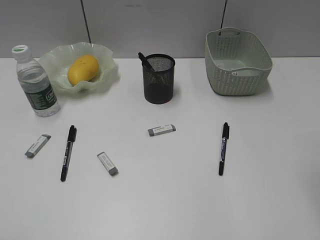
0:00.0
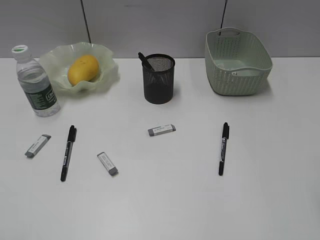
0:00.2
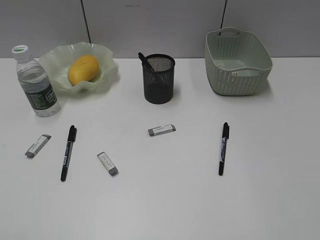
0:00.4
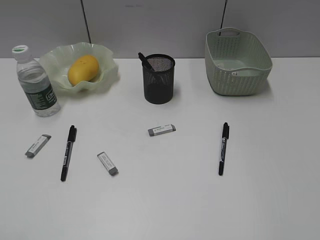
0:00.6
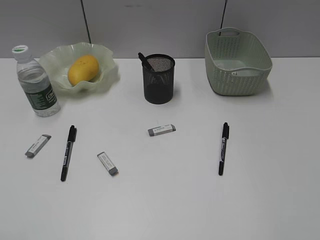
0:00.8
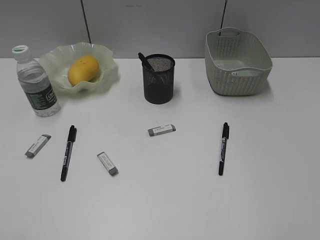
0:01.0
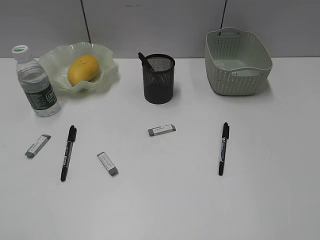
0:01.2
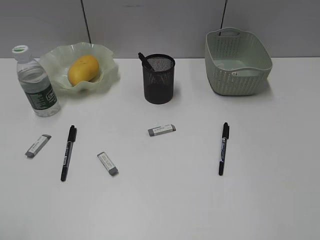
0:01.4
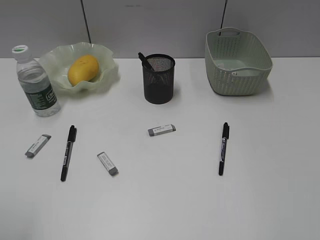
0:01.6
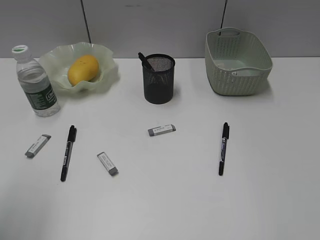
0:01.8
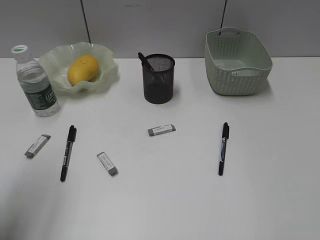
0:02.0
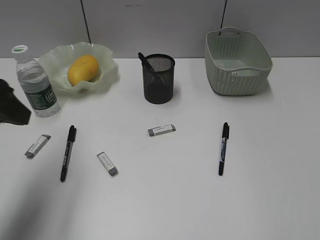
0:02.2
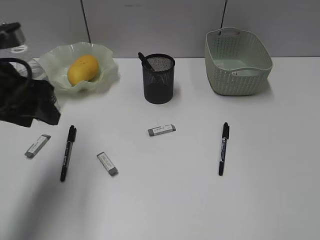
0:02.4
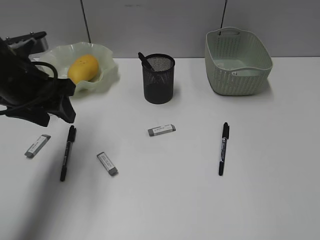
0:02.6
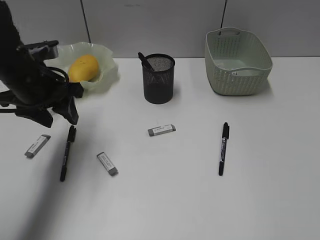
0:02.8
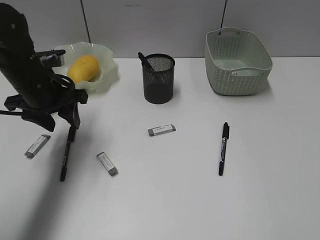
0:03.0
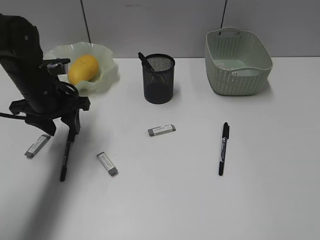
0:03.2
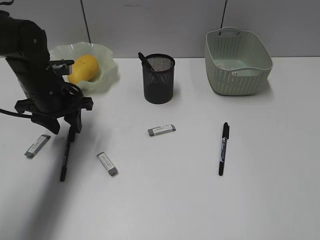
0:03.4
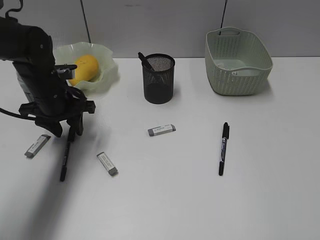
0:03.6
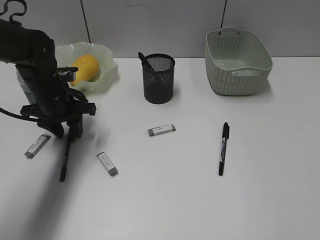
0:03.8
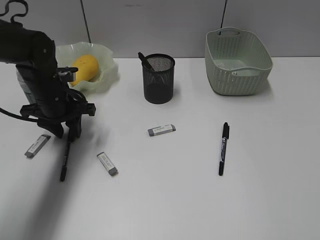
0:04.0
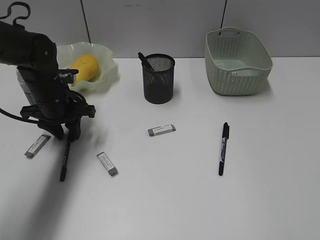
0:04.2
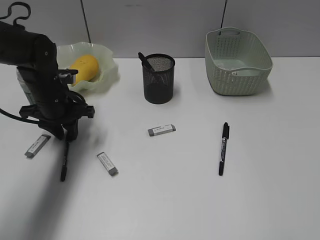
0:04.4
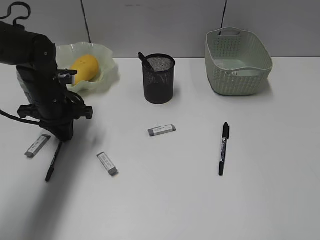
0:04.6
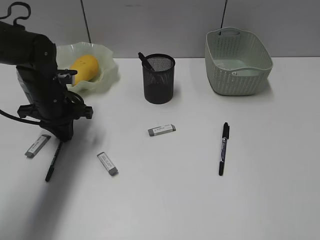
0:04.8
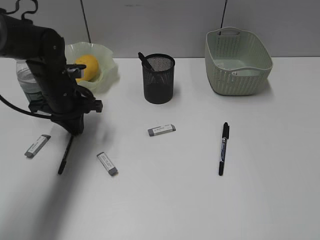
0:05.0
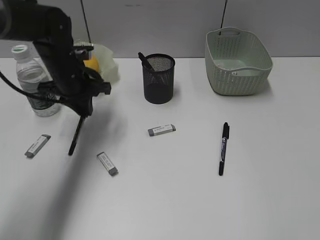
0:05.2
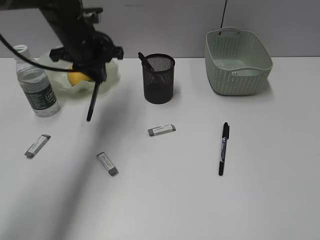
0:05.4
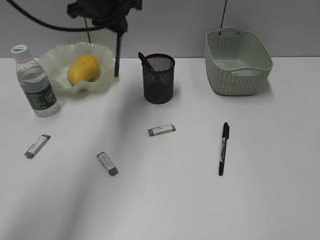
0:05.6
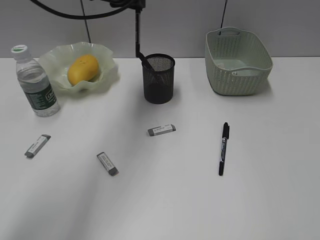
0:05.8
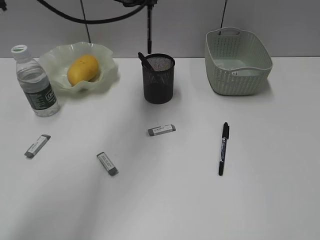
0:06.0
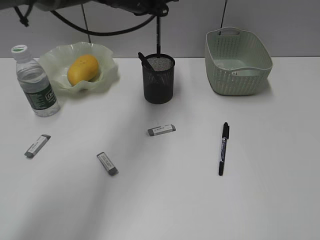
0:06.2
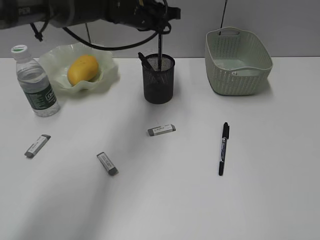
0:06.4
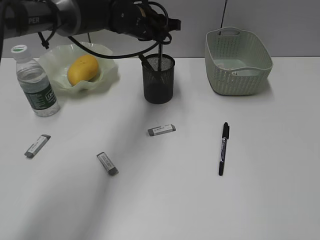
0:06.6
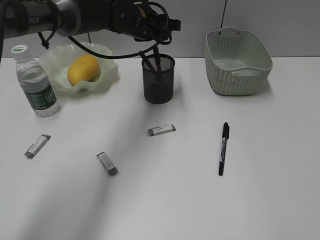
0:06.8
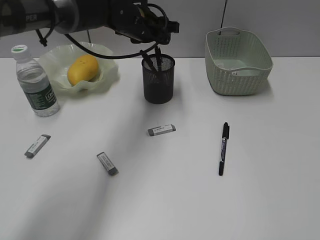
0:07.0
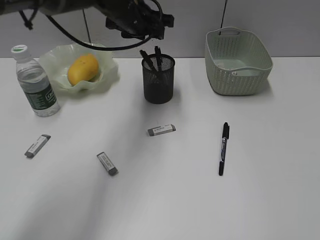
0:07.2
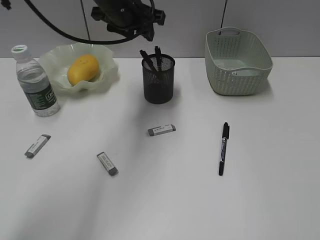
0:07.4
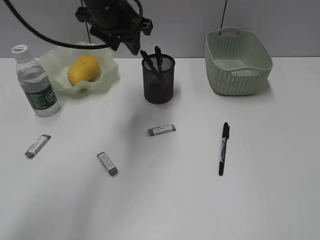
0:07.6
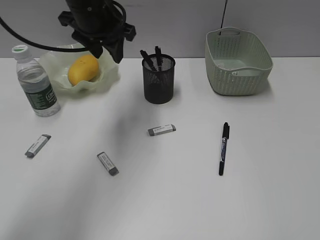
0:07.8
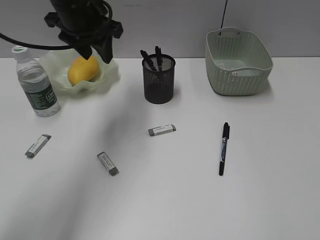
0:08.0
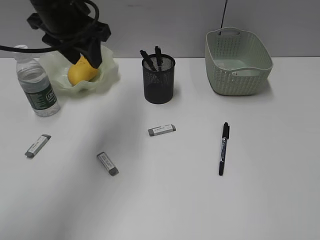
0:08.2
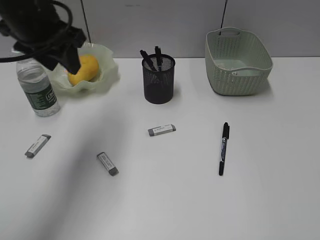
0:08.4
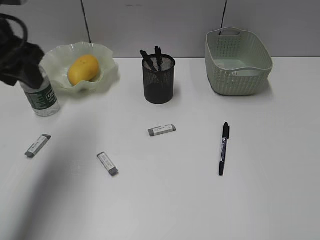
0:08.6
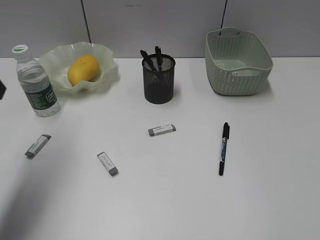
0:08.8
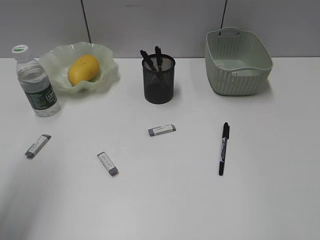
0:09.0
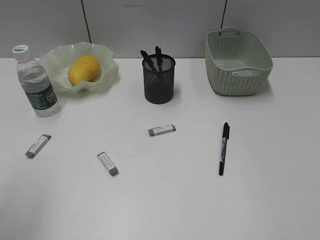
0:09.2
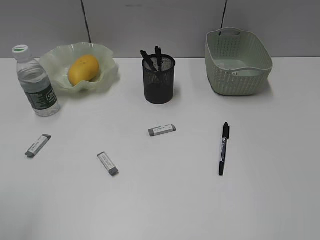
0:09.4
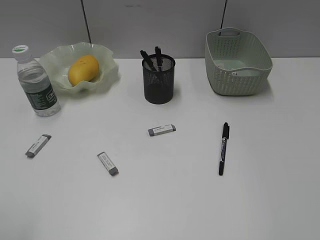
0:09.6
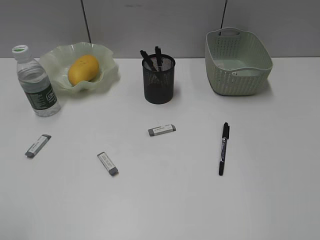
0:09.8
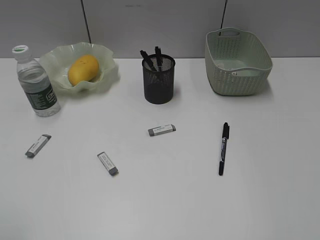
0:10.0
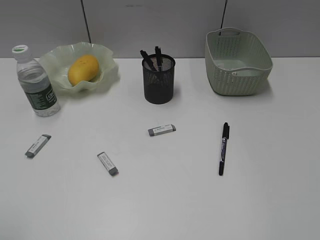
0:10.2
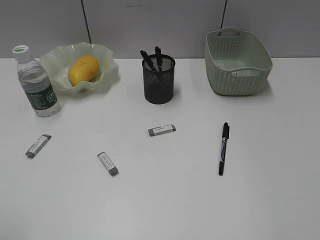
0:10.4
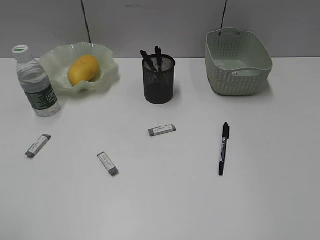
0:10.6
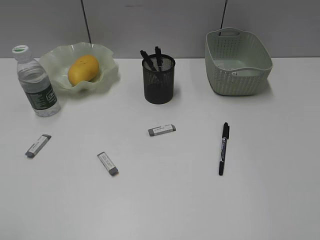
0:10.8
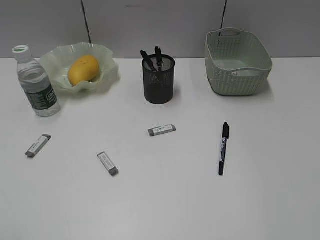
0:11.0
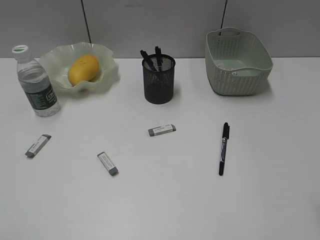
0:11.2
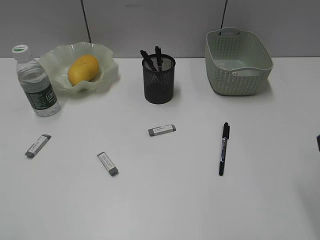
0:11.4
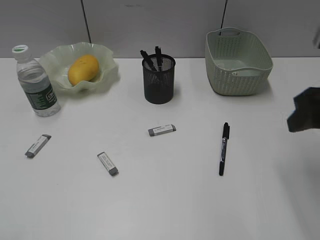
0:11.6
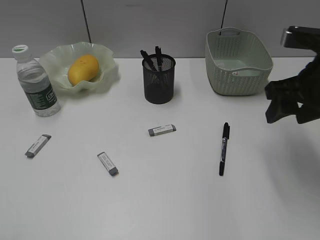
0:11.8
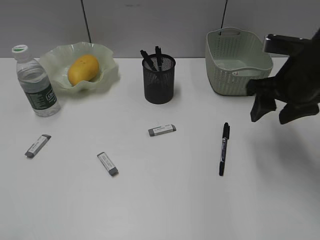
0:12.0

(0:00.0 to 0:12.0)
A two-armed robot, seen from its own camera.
Step, 0:00.0 - 0:04.8: Grasp the black pen with left gripper.
Step, 0:05.0 - 0:06.8: Place the black pen in pen holder with left gripper.
0:01.6 - 0:03.0: The left gripper goes some 30 cm forward.
0:03.0 - 0:04.4: The left gripper heads downward, covering approximately 5 cm.
0:04.4 - 0:06.0: The left gripper is displaced upward, to the right and forward by roughly 25 cm.
0:06.0 - 0:07.6: The left gripper travels downward and back again, some 10 cm each way, and opens its fingers.
0:07.6 - 0:09.0: The left gripper heads backward and to the left, covering about 30 cm.
0:09.0 - 0:10.4: The left gripper moves backward, approximately 15 cm.
0:10.4 - 0:12.0: The right gripper is displaced forward by approximately 30 cm.

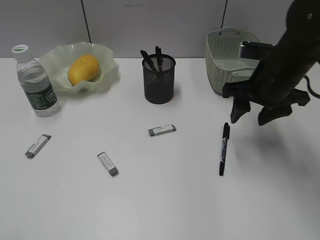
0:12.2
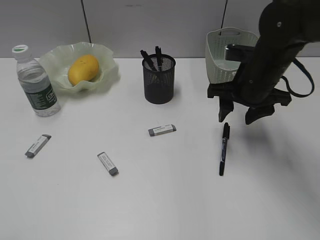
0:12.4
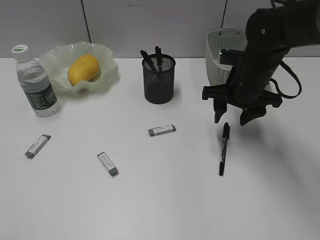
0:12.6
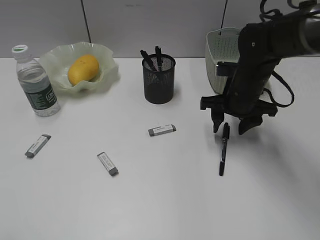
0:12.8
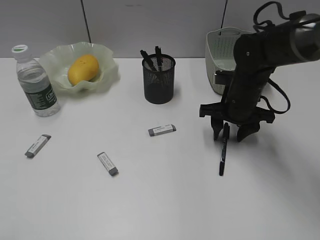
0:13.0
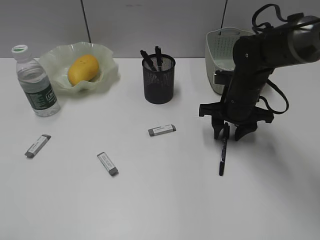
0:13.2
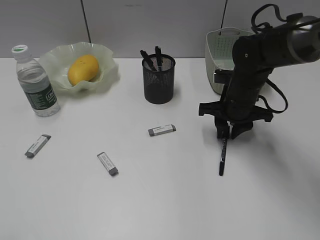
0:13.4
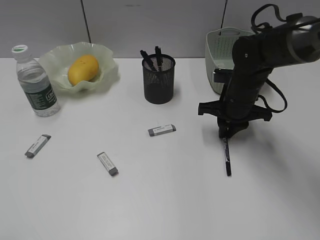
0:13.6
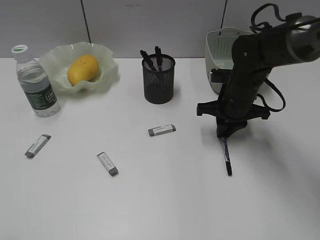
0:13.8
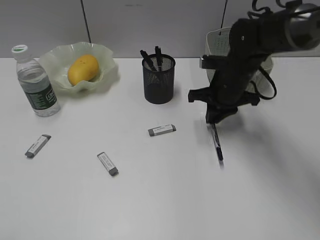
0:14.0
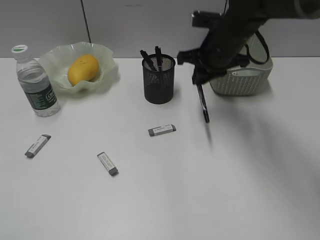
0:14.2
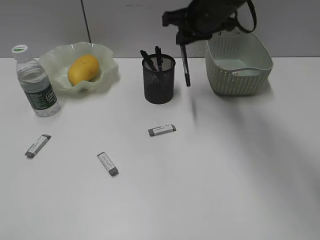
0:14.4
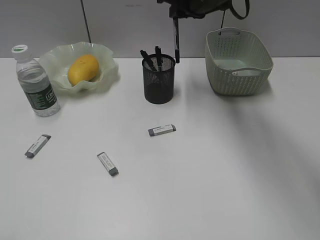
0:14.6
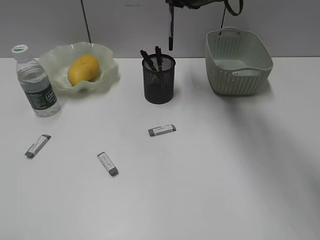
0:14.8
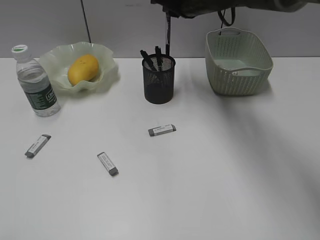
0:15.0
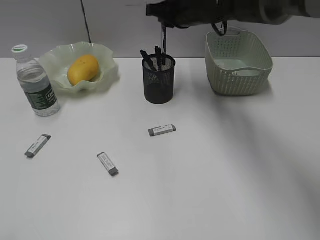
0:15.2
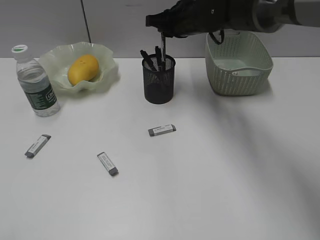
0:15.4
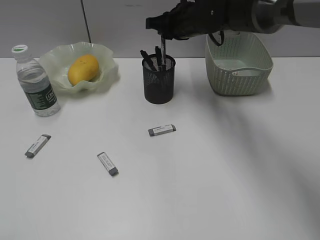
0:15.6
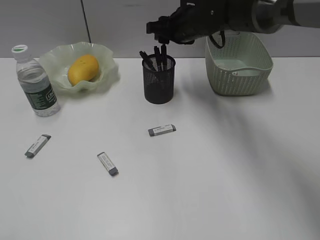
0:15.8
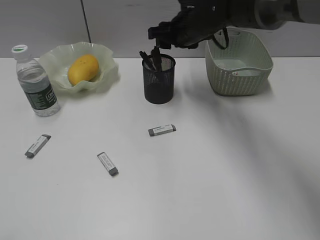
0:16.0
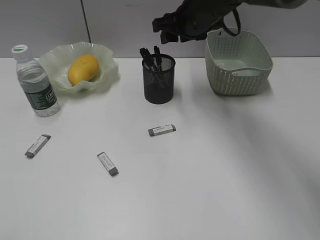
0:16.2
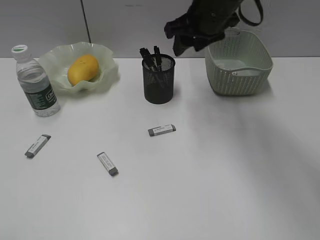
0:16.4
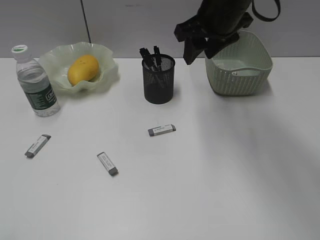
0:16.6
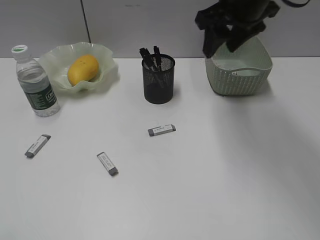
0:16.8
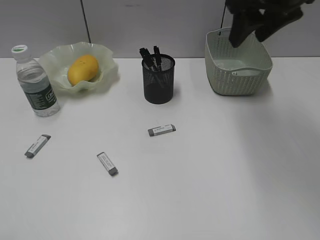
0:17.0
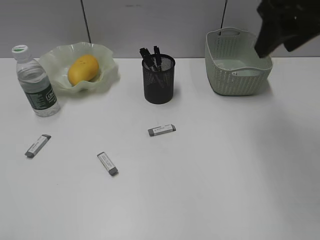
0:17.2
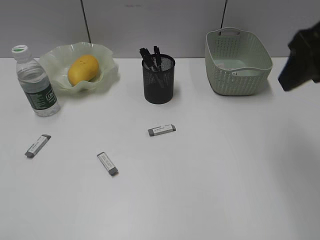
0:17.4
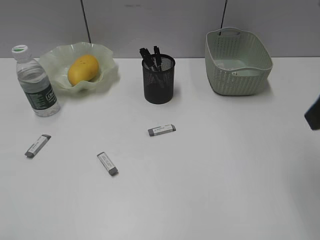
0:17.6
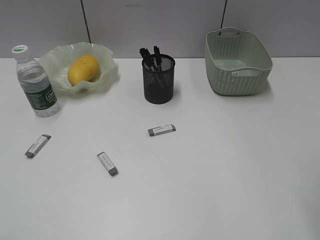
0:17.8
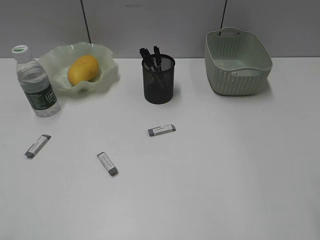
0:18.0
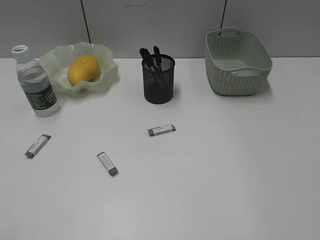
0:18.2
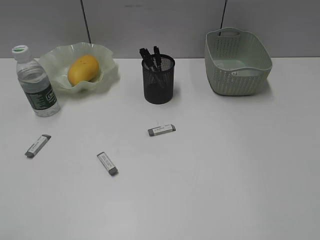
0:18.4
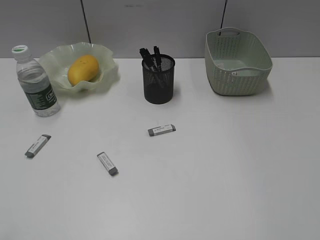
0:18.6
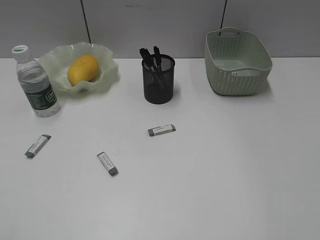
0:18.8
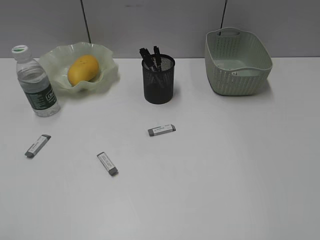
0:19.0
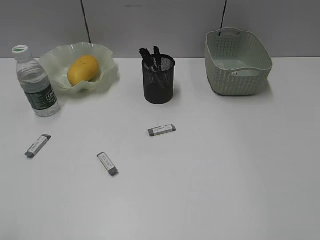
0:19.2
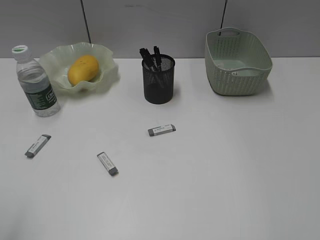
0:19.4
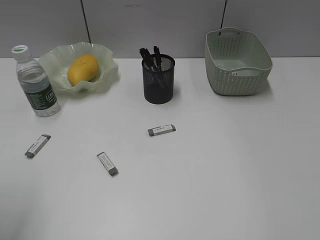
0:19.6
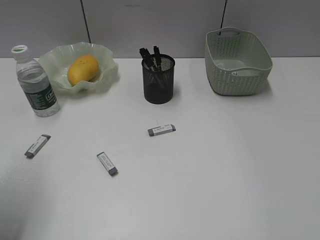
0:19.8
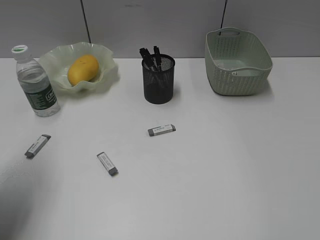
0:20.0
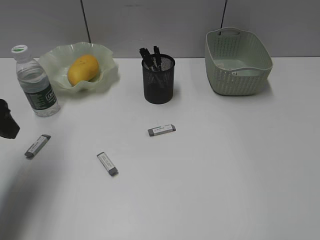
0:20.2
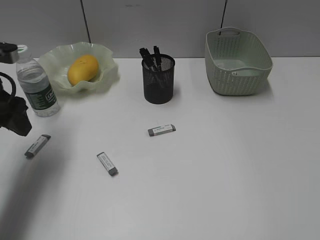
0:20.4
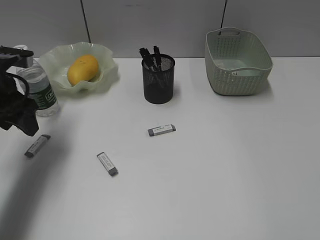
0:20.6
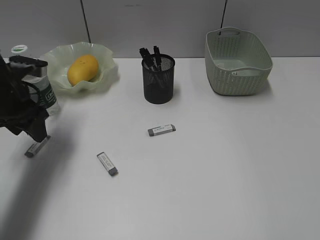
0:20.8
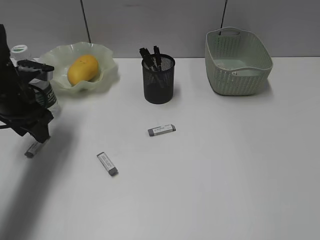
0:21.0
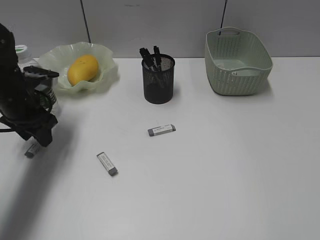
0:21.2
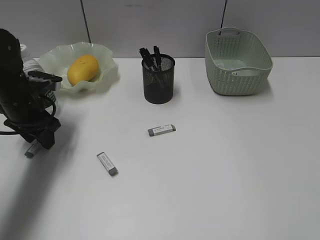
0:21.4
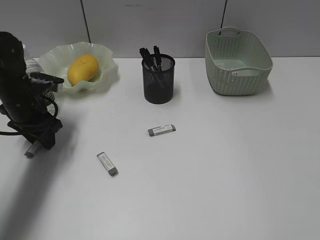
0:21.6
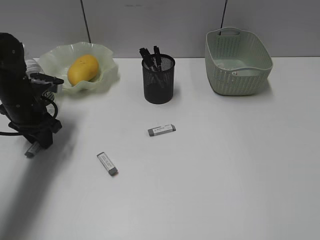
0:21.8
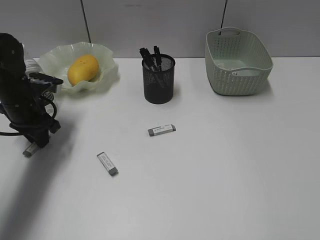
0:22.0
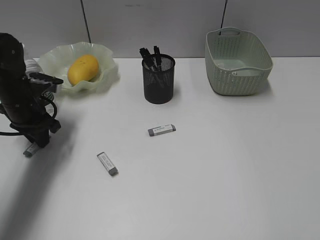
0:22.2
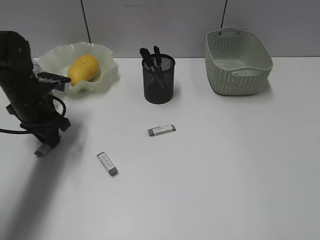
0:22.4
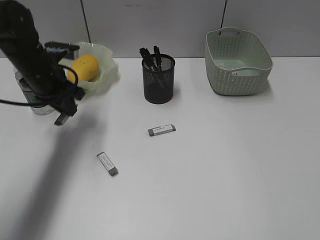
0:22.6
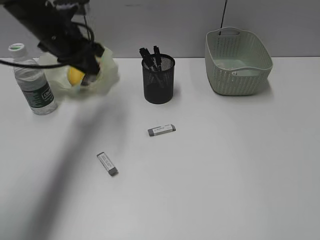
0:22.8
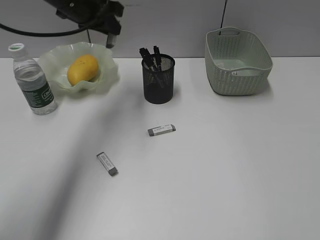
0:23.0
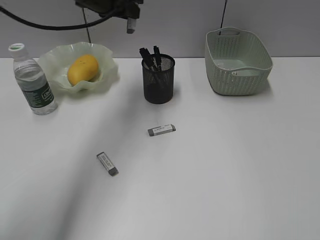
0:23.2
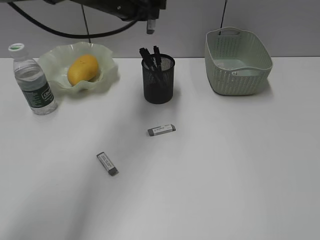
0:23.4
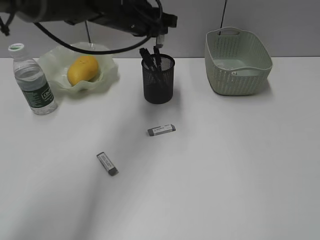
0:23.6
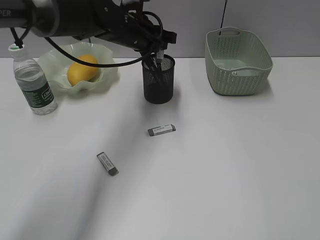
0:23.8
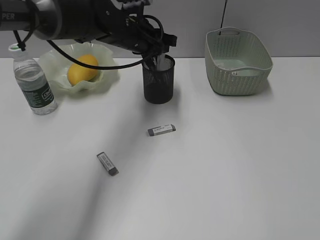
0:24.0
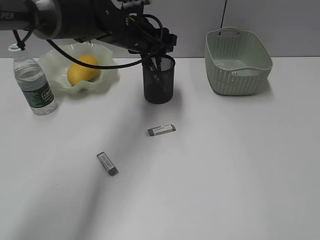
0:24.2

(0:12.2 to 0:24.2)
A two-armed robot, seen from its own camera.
Step, 0:13.8 - 0:16.0: Place the black pen in pen holder with right gripper.
Step, 0:16.2 - 0:22.0: Grasp the eraser with left gripper.
Step, 0:22.2 - 0:24.0: Place the eraser in pen holder with left gripper.
0:12.2 - 0:13.8: The right gripper travels downward by roughly 10 cm, and closes.
0:13.8 - 0:15.2: The right gripper is displaced upward, forward and to the left by roughly 20 cm.
0:15.2 - 0:16.6: The right gripper shifts about 10 cm backward, and opens its fingers.
0:16.6 - 0:18.2: The right gripper is displaced backward and to the right by about 35 cm.
0:18.2 - 0:19.8: The left gripper goes some 15 cm forward.
0:19.8 - 0:21.2: The left gripper moves forward and downward, approximately 25 cm.
0:21.2 - 0:22.6: The left gripper changes place by approximately 5 cm, and closes.
0:22.6 - 0:24.2: The left gripper goes roughly 15 cm to the right, and opens up.
